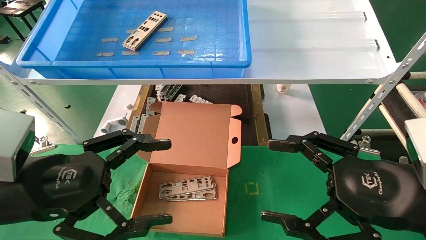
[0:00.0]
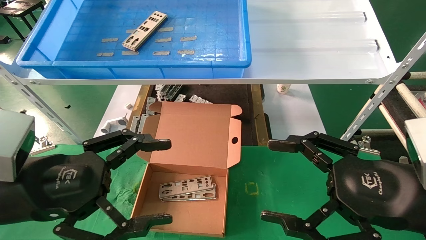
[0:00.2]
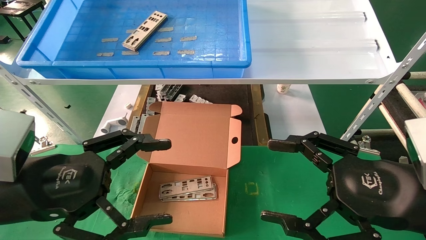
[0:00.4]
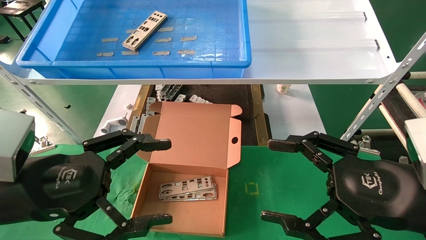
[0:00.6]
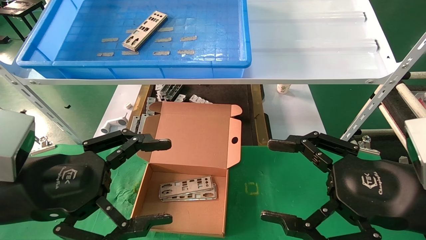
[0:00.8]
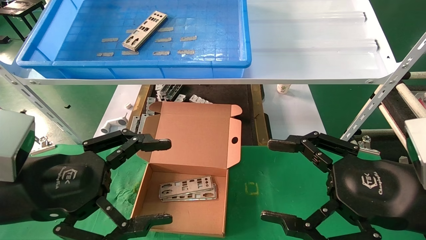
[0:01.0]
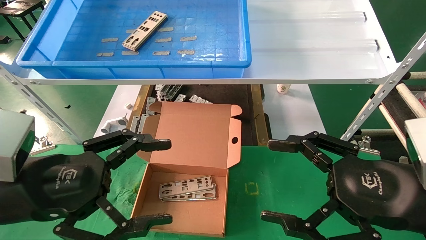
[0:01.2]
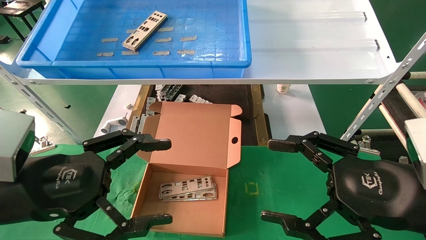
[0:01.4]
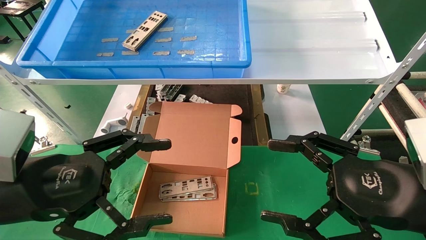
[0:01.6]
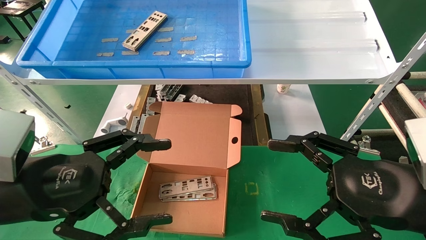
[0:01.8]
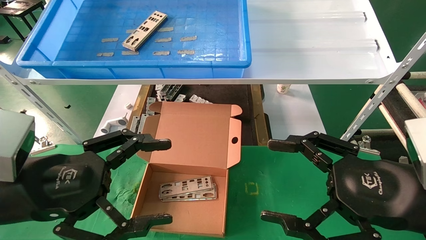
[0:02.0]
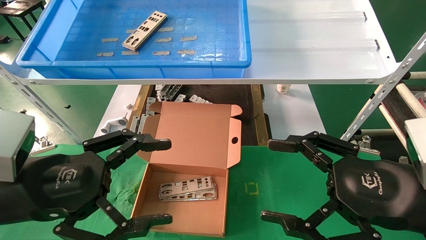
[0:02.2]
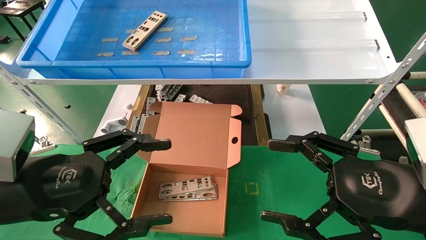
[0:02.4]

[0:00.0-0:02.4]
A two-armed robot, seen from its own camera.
Task of the whole recording: pick up the parts on the tray and put them in the cardboard box.
0:00.0 to 0:02.4: Neither gripper changes place.
